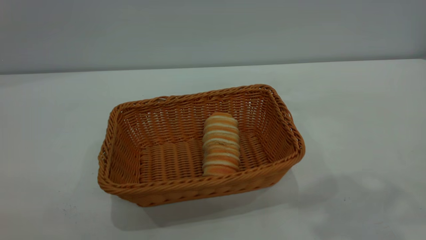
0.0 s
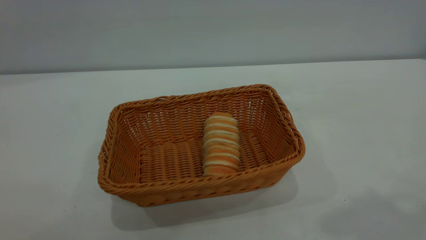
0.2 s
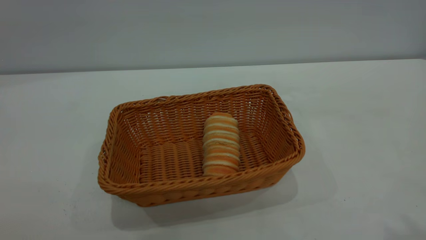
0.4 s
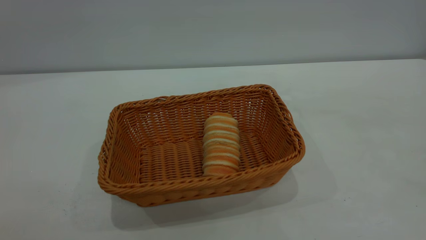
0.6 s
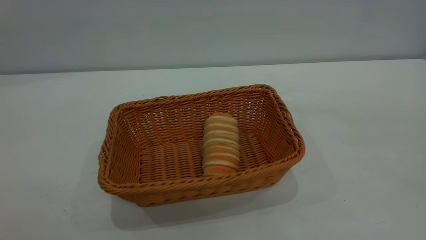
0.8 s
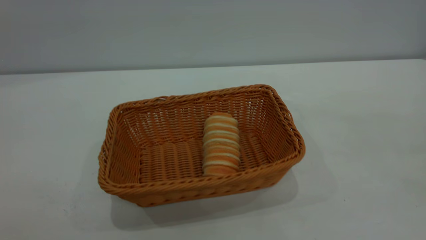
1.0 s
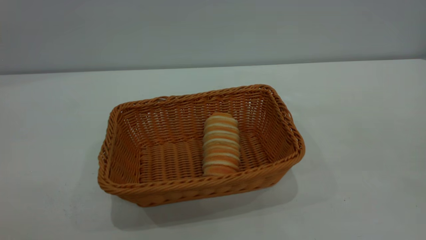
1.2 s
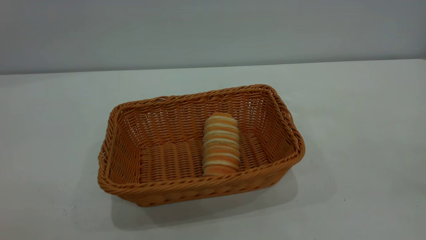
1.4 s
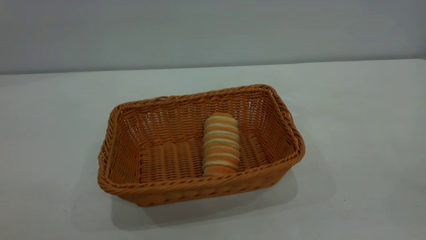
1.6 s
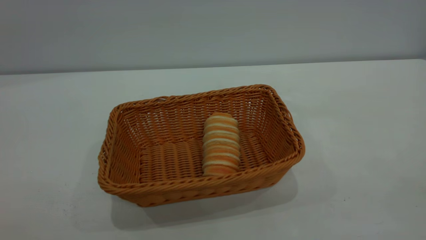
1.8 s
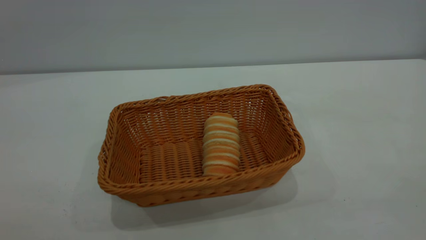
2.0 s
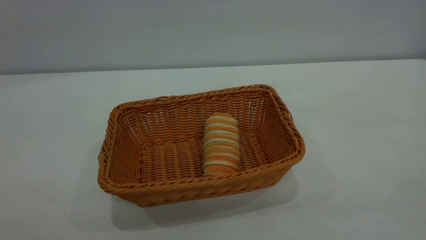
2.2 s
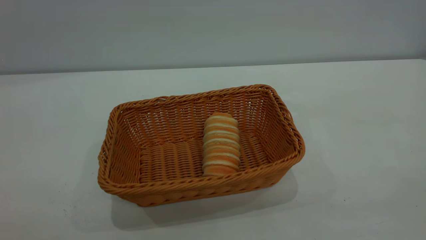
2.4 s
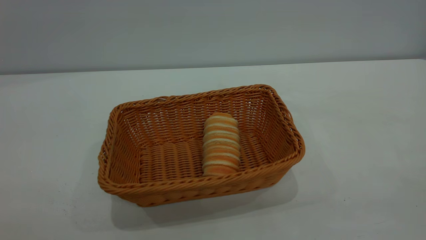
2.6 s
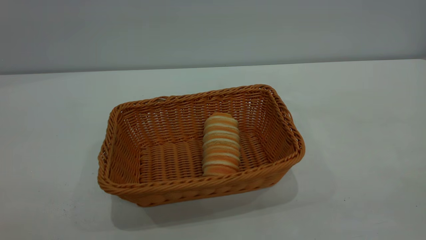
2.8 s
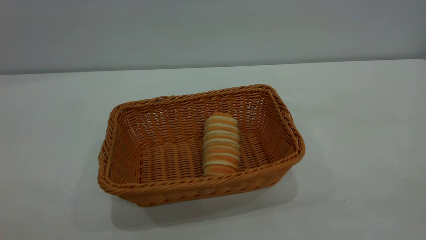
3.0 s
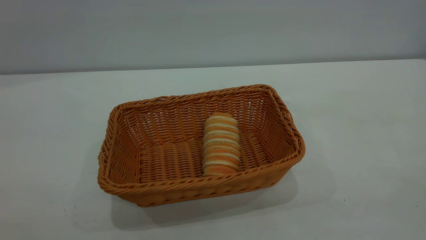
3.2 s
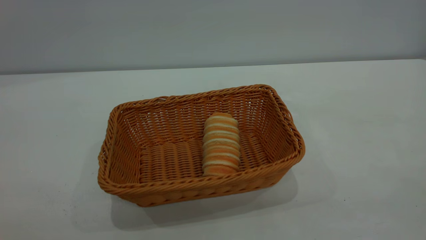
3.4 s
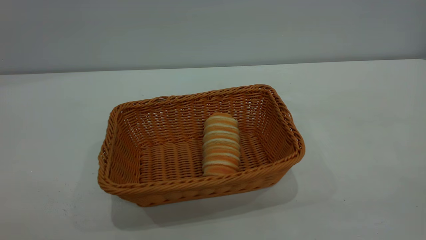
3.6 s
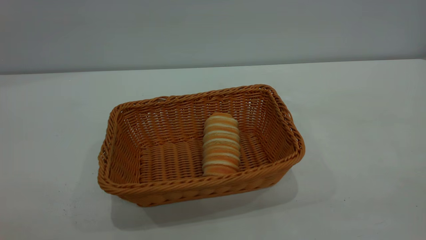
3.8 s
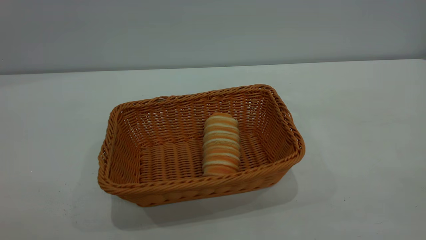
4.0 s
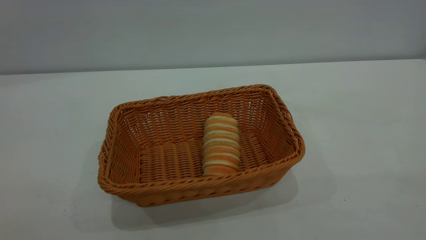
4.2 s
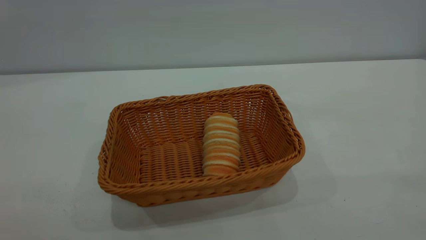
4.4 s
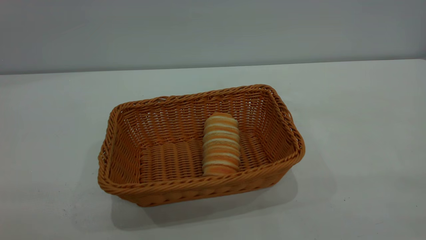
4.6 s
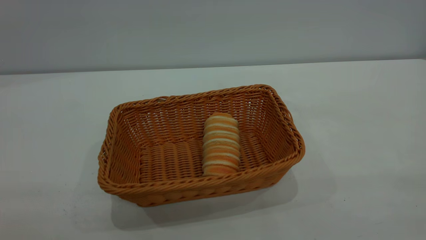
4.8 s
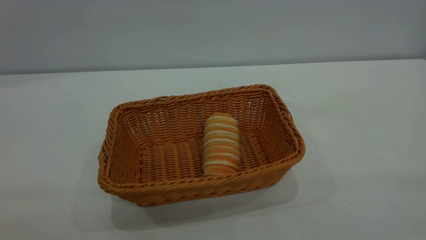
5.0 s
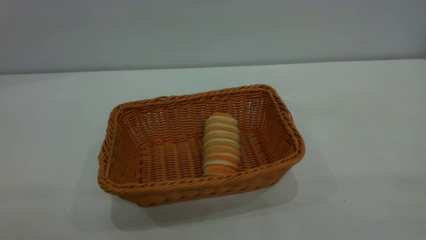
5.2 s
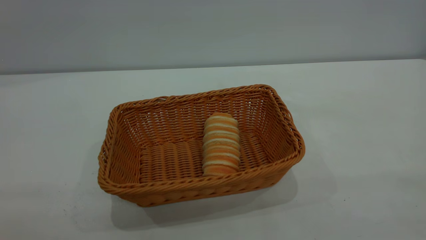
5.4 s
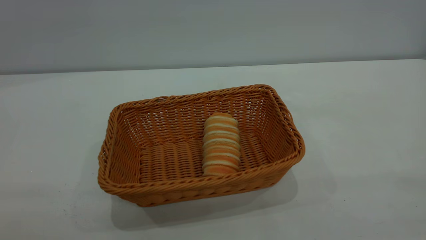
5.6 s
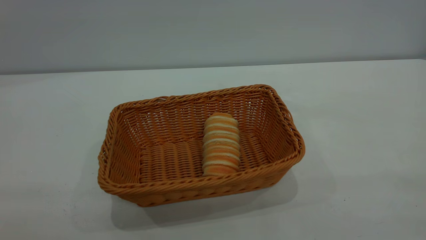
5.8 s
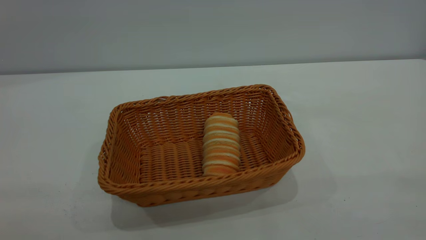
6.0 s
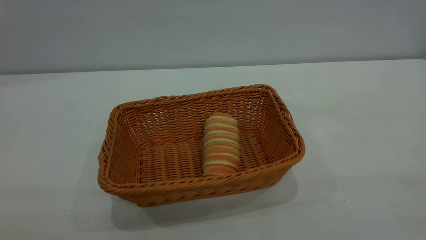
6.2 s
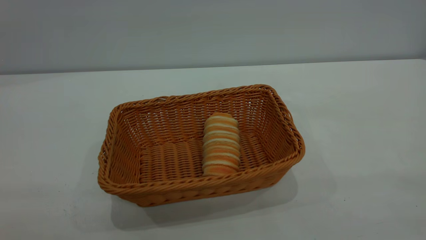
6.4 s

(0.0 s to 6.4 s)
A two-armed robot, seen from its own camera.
Task of the whole recording: One hand grasps the yellow basket and places it in the middle of the table, while the other hand picks up the long bread and puts it into the yellow basket.
4.8 s - 6.4 s: Neither gripper changes place.
